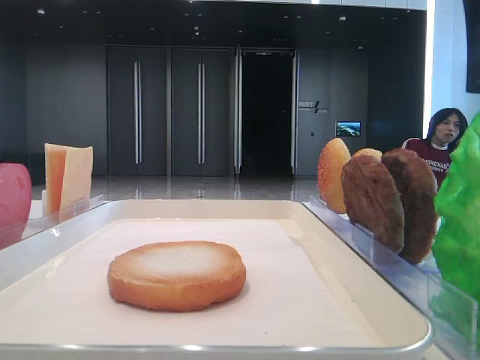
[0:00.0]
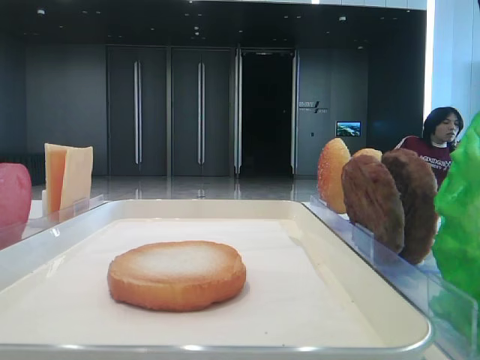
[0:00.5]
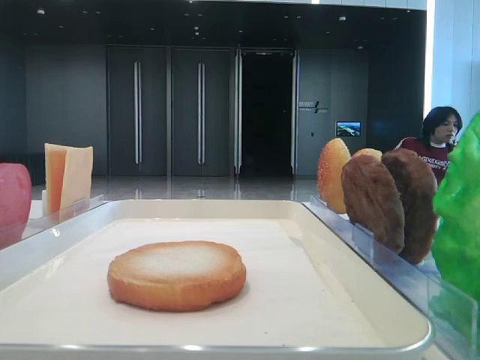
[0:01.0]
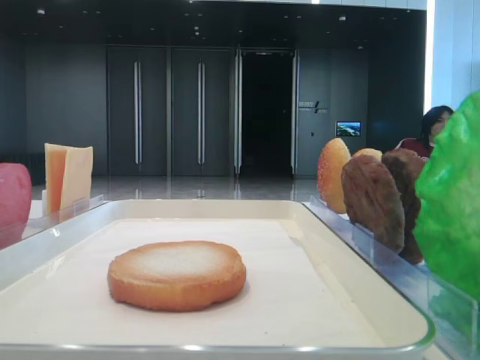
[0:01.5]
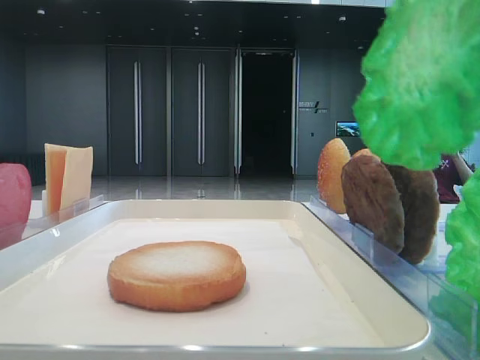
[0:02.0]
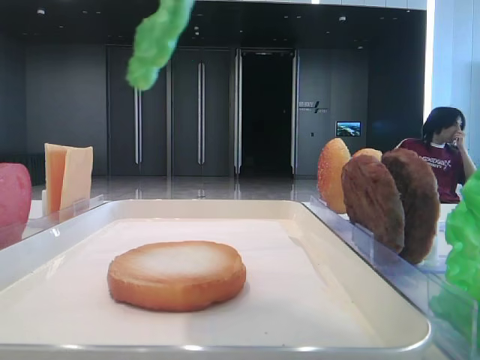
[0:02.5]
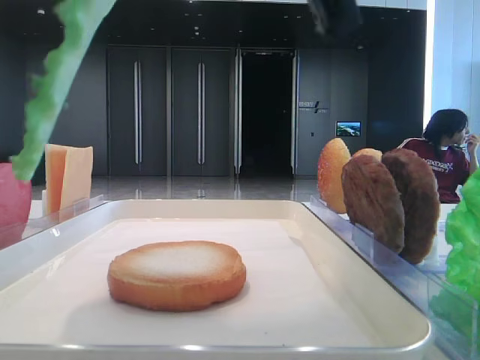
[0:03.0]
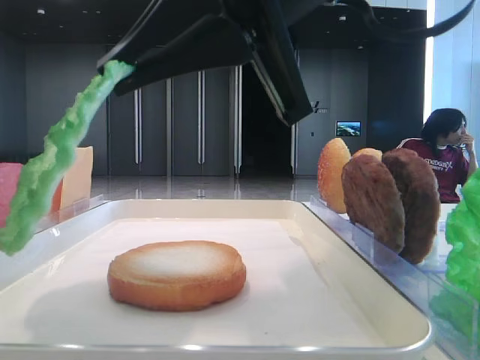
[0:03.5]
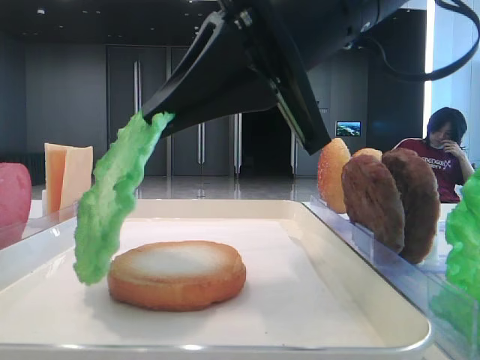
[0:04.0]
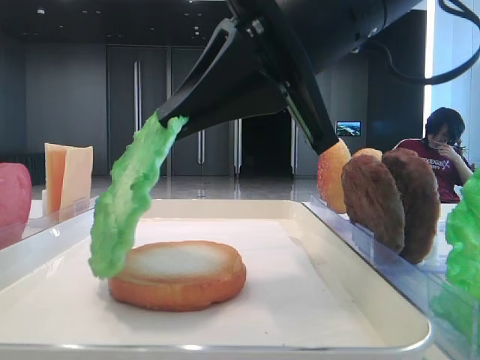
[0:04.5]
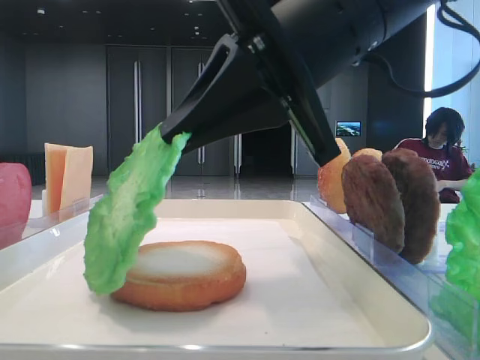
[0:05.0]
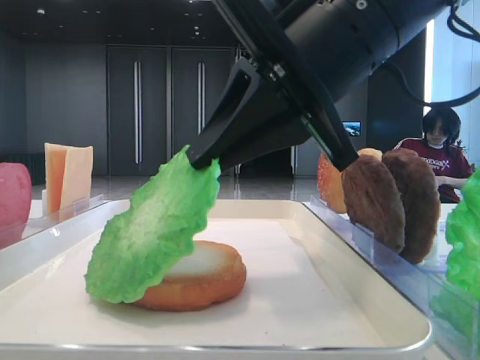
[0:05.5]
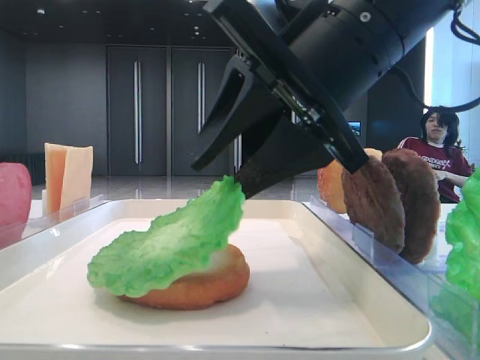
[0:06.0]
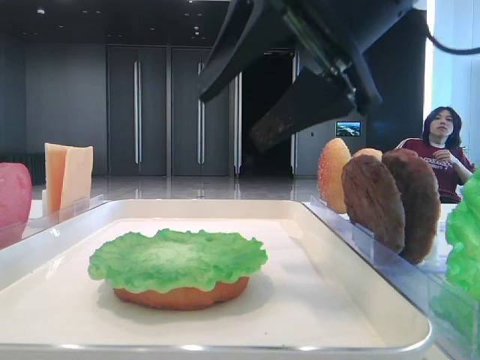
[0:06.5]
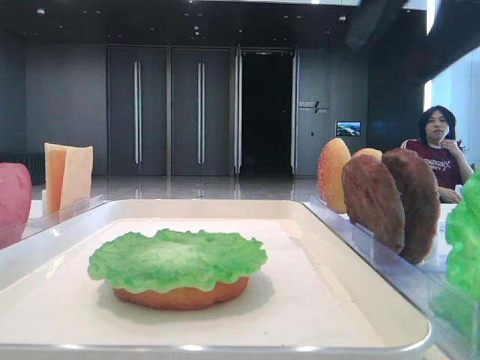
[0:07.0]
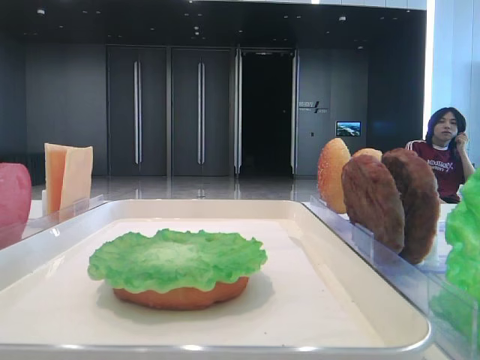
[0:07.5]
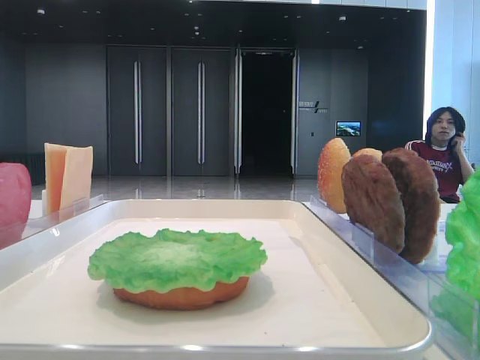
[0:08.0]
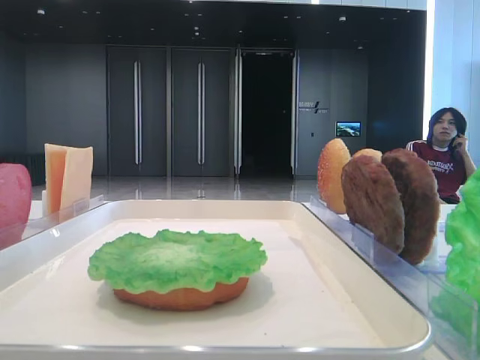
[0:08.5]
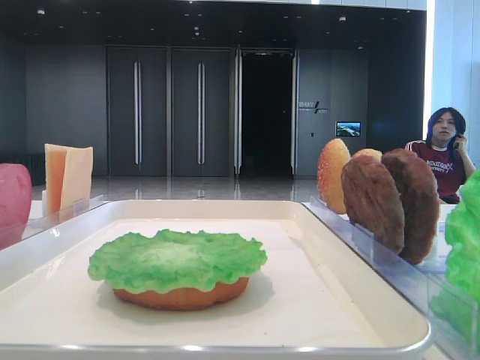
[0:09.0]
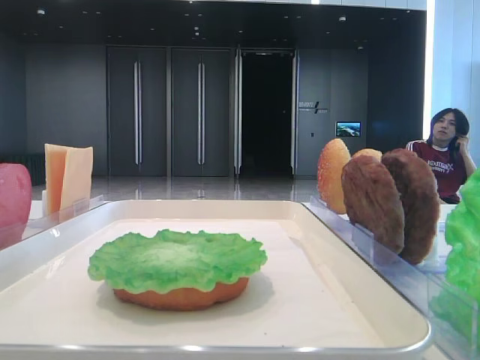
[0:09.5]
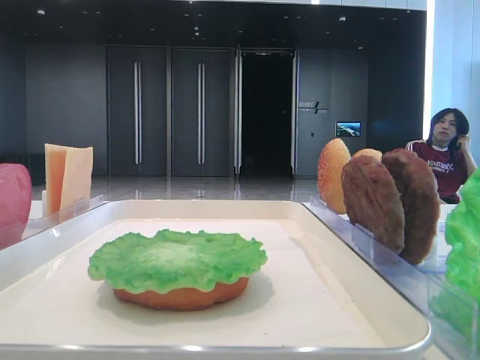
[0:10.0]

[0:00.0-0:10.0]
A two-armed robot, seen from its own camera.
Step, 0:01.5 to 0:06.0: Place the lettuce leaf on the bottom bread with the right hand.
0:00.0 to 0:02.0: The right gripper is displaced upward by some 5 cm, and closes.
0:02.0 to 0:04.0: The right gripper shifts about 20 cm downward, forward and to the left.
0:04.0 to 0:06.0: The right gripper opens up.
0:06.0 to 0:08.0: The right gripper goes about 25 cm to the right, and opens.
0:08.0 to 0:10.0: The right gripper moves backward, about 20 cm.

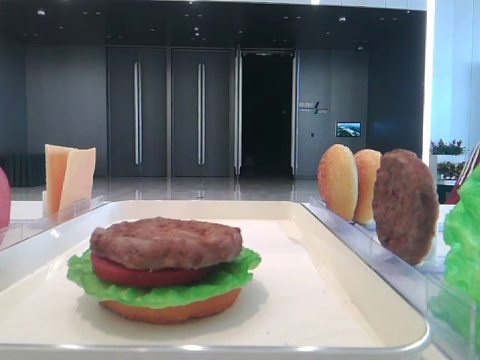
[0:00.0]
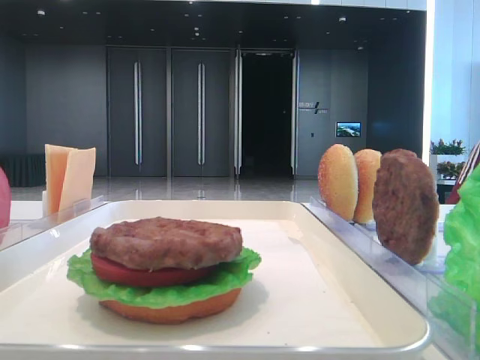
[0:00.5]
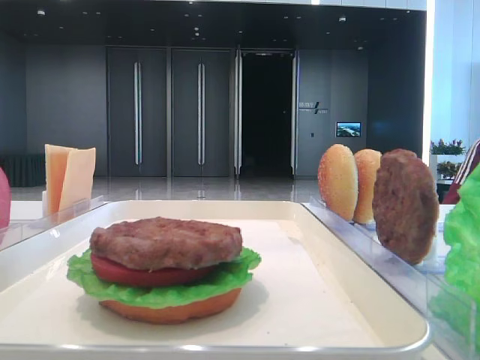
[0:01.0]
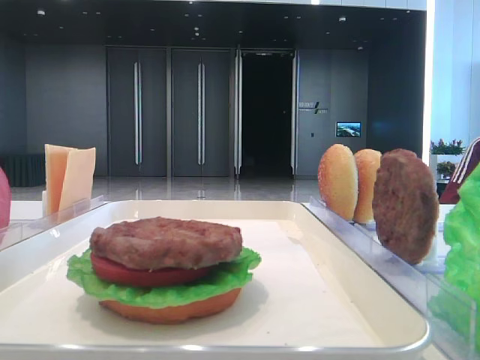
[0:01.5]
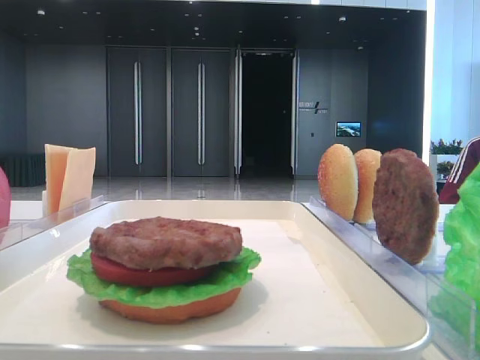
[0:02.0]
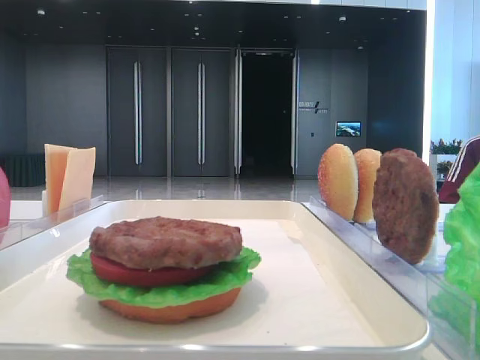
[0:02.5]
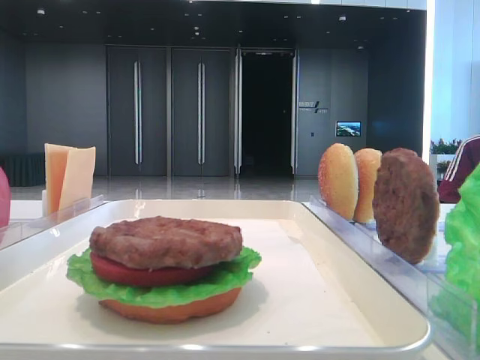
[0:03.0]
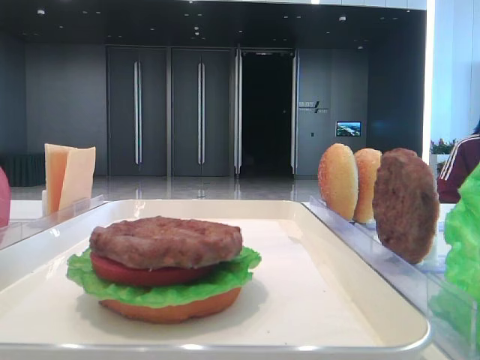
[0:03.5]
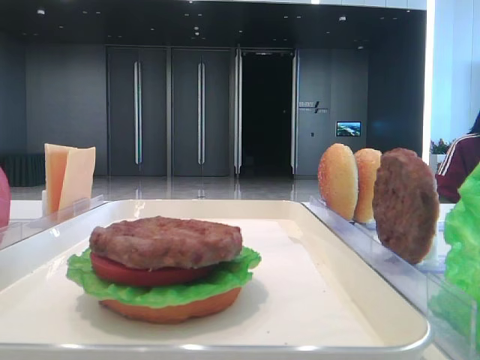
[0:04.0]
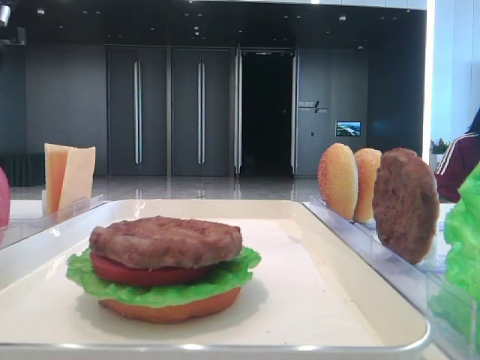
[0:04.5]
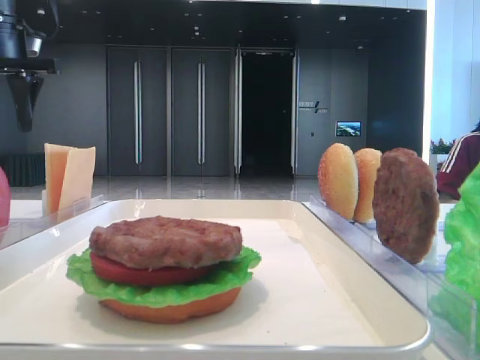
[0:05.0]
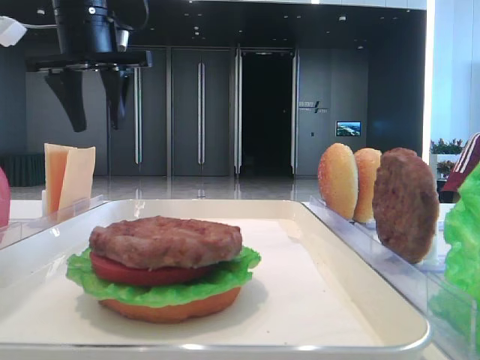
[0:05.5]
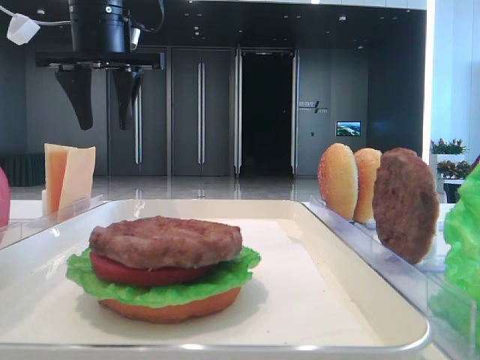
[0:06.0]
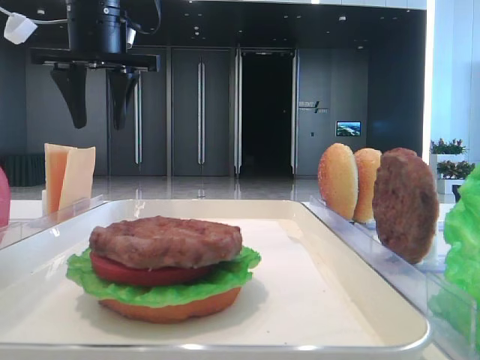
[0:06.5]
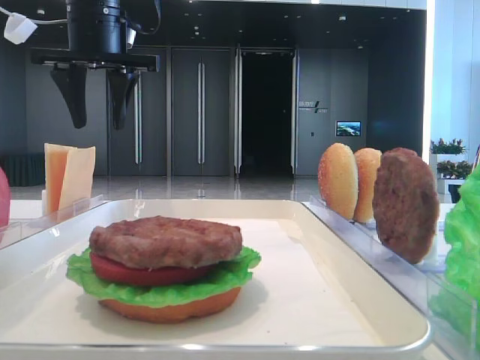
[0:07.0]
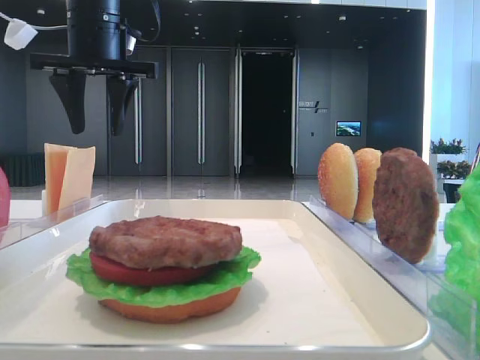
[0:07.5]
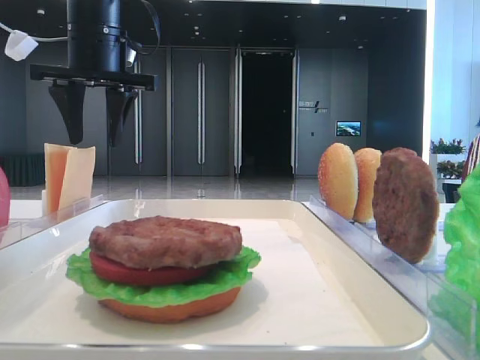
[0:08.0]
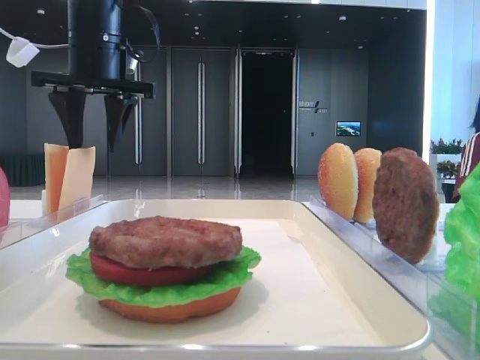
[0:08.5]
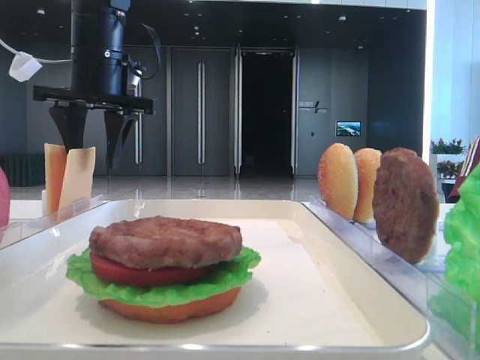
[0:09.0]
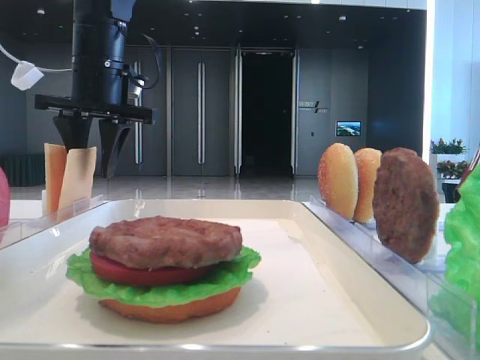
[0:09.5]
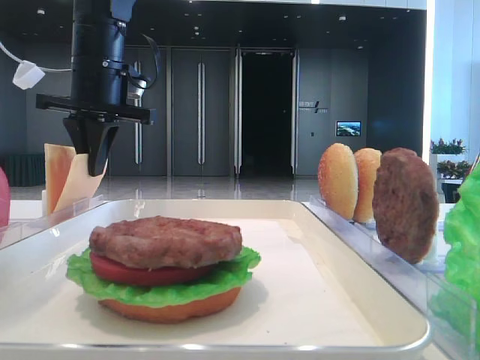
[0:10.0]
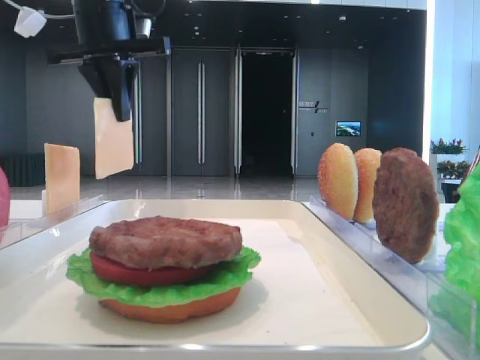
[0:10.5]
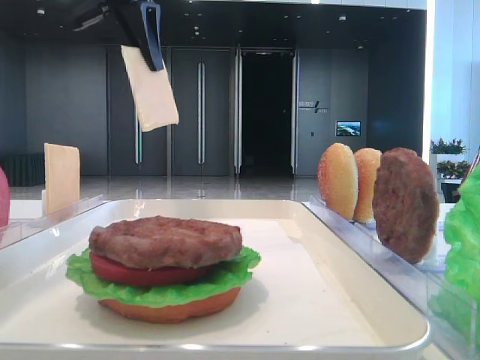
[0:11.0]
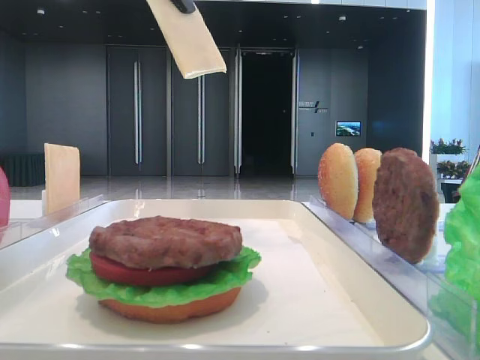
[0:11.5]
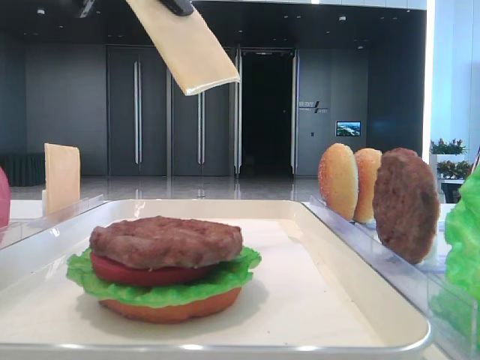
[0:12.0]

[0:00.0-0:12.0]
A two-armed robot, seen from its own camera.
Step, 0:00.0 to 0:10.0: Pick up the cheese slice with the left hand.
0:04.0 to 0:06.0: The left gripper moves to the right and forward, roughly 20 cm.
0:06.0 to 0:08.0: The grippers stay close to where they were, moving slightly.
0:08.0 to 0:10.0: The left gripper closes.
0:10.0 to 0:12.0: The left gripper moves backward and upward, about 15 cm.

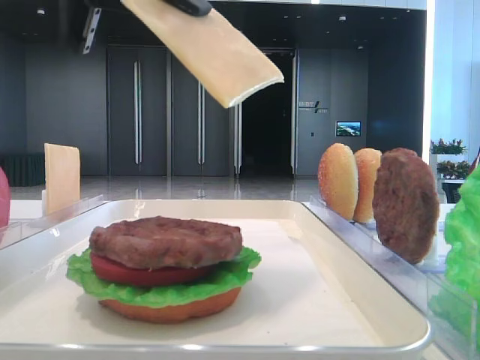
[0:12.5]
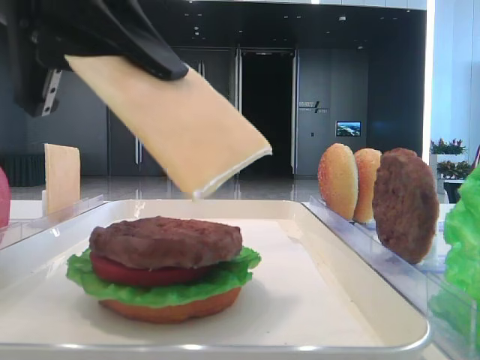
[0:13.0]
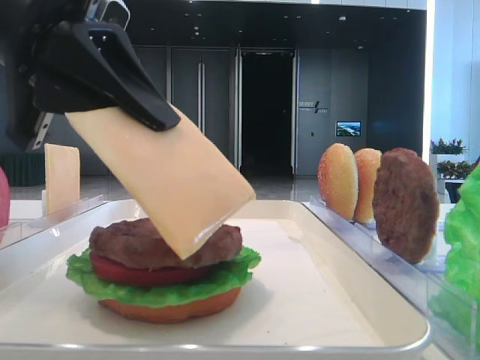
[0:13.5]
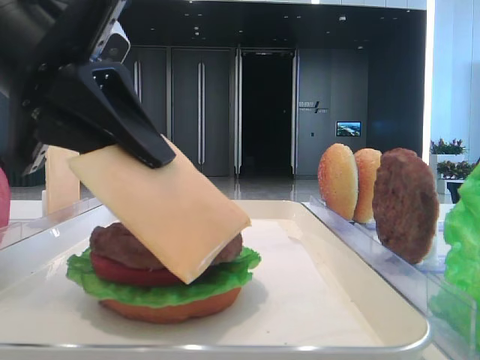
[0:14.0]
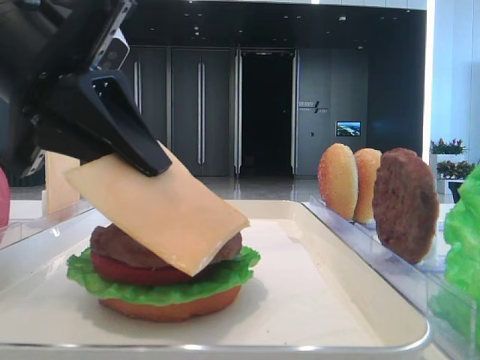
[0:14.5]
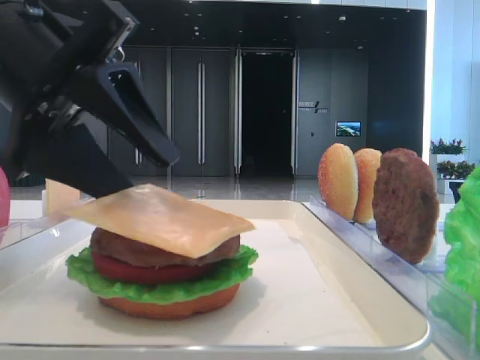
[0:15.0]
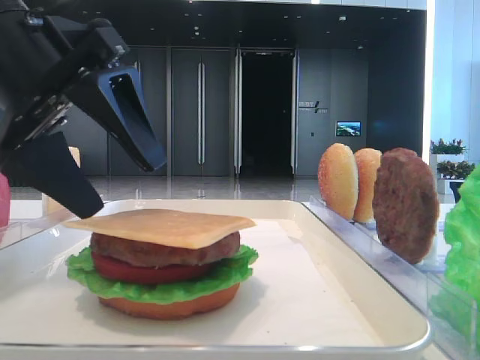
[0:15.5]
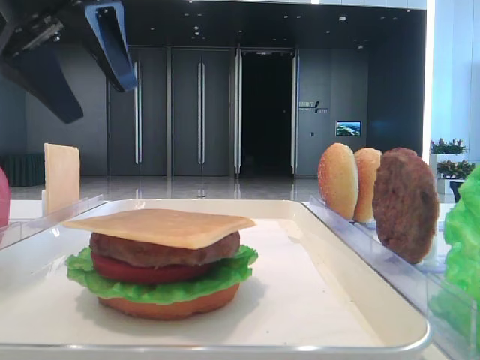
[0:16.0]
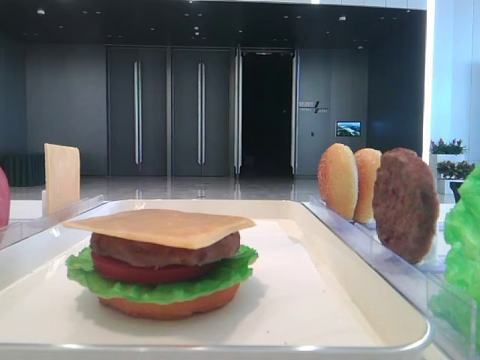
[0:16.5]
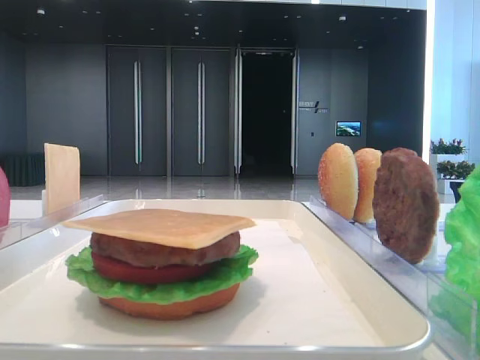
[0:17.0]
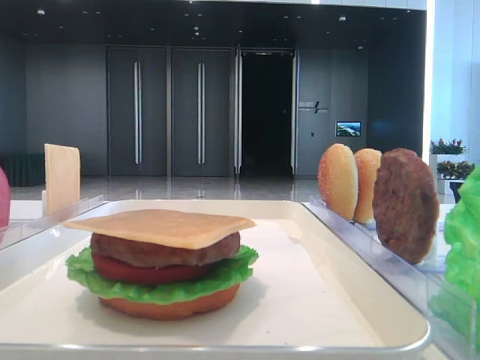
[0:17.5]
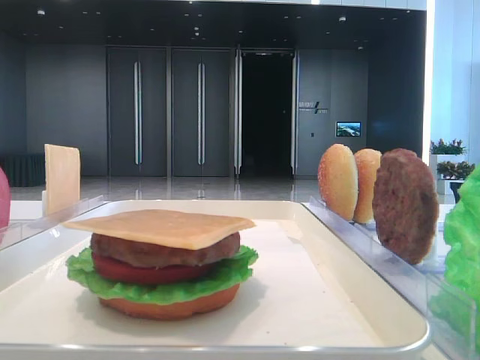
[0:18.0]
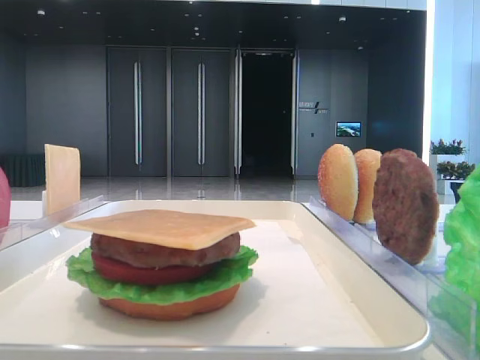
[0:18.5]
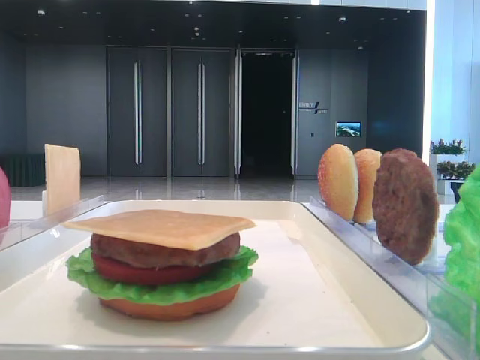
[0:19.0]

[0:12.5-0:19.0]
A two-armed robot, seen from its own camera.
Step, 0:12.5 to 0:15.0: Place the cheese slice on the patty with the left hand.
0:12.5 to 0:14.5: The left gripper shifts roughly 10 cm downward.
0:14.5 to 0:17.0: The left gripper travels to the left and upward by roughly 25 cm, and opens its fingers.
0:17.0 to 0:19.0: The left gripper is displaced backward by roughly 30 cm.
